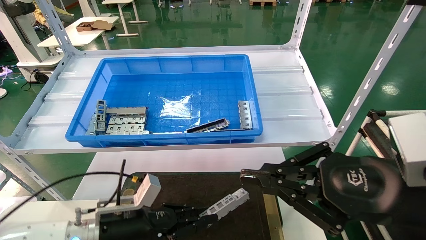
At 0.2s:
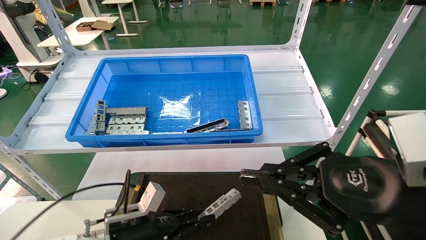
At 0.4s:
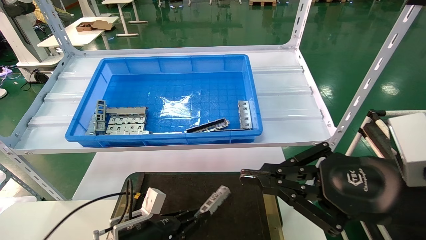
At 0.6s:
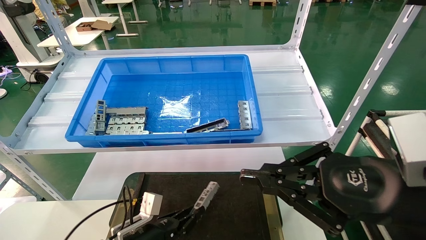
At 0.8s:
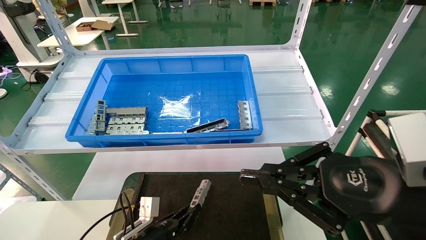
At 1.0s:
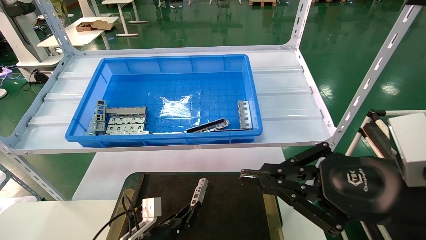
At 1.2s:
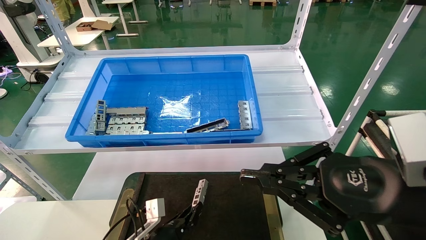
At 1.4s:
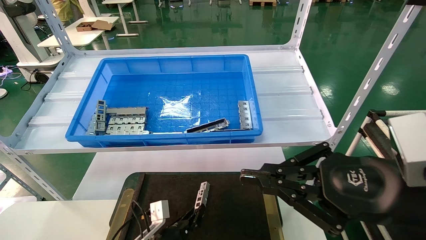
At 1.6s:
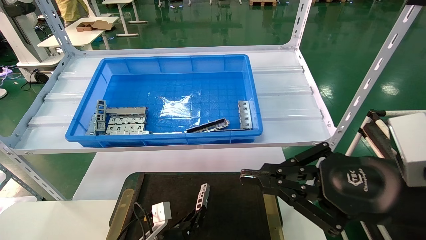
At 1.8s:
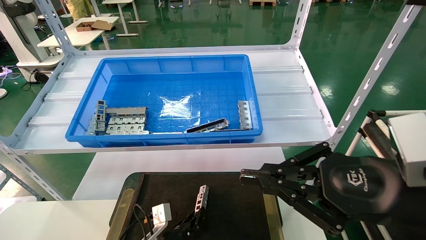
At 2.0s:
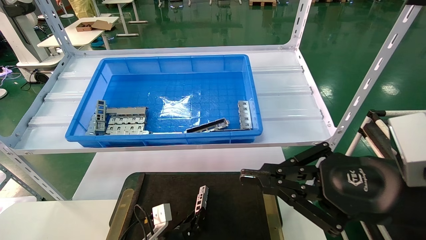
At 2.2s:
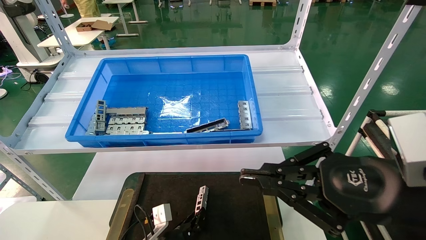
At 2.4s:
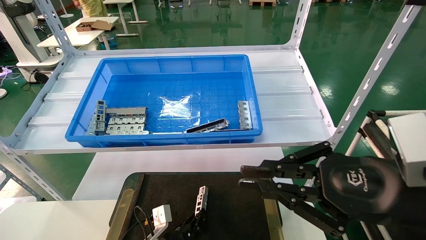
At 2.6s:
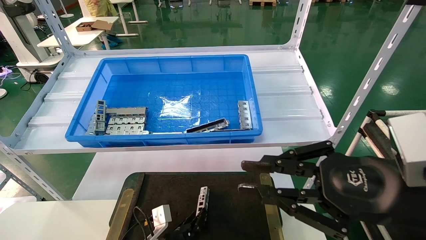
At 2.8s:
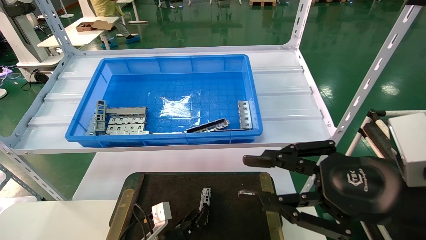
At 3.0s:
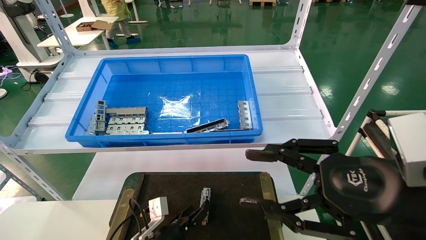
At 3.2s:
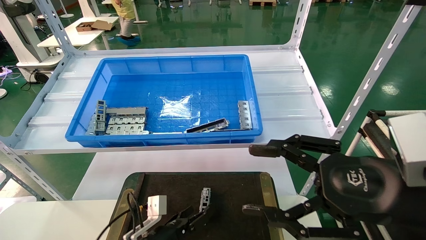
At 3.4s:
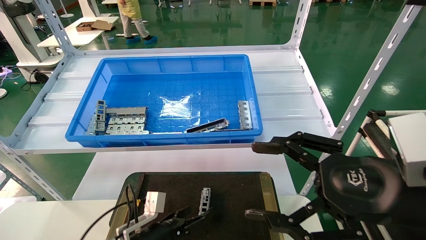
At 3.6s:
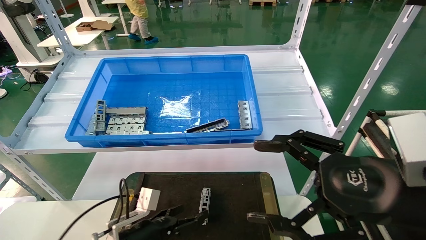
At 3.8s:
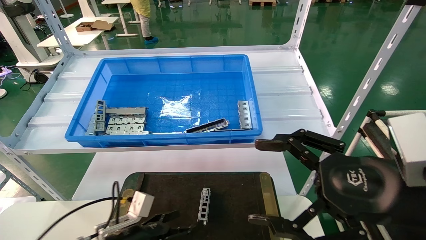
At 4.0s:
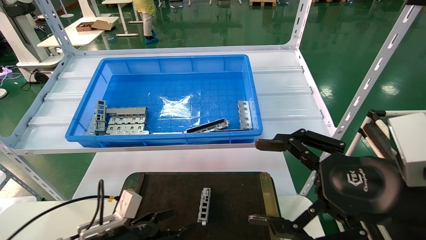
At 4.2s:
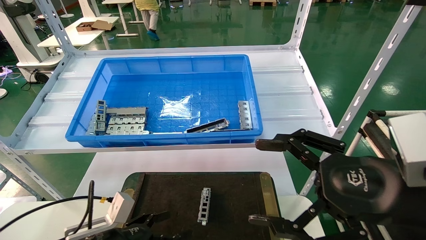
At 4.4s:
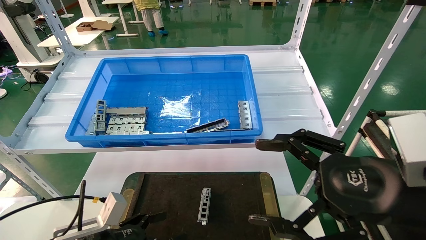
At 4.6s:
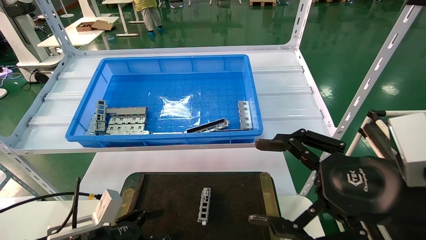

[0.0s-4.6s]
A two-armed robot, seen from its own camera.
Task of the whole recording: Grasp the part with one hand and place it on the black container.
Step, 0.0s to 3.0s: Place the front USB bracket into the box.
0.0s to 1.6s: The left gripper heads downward and to the right, covering about 15 cm.
1.6s to 3.0s: The left gripper opens up. The right gripper opens up.
3.0s to 4.6s: The left gripper goes about 20 cm to the left, upward and backward, and opens up. The right gripper opens.
